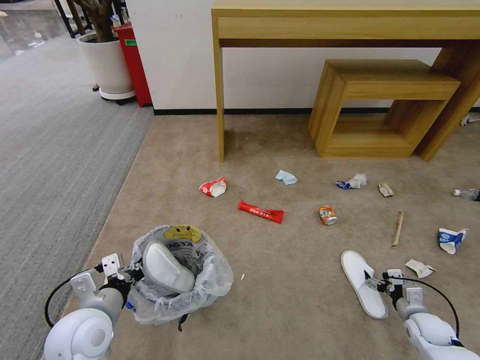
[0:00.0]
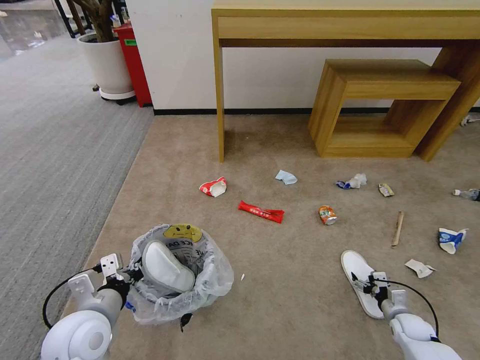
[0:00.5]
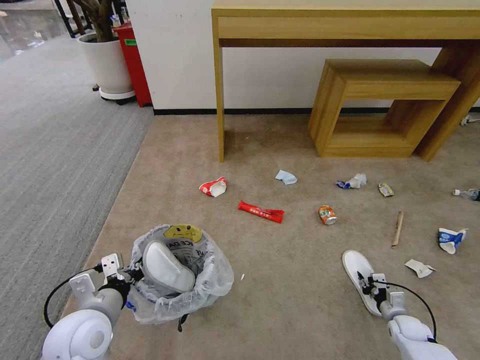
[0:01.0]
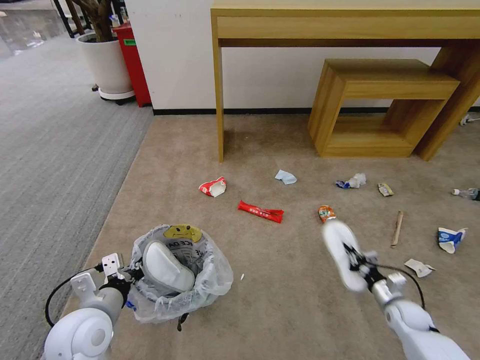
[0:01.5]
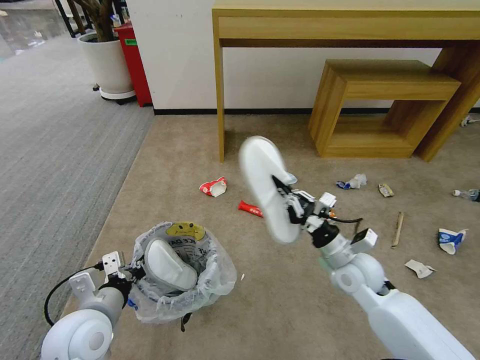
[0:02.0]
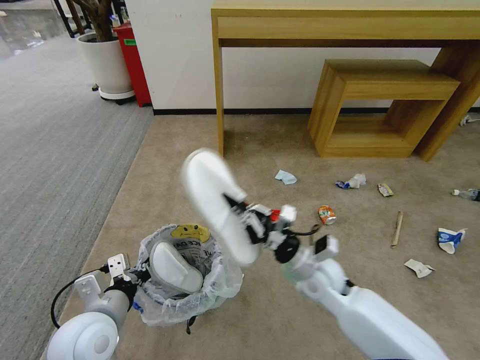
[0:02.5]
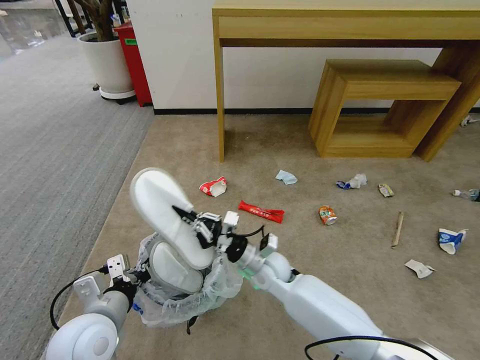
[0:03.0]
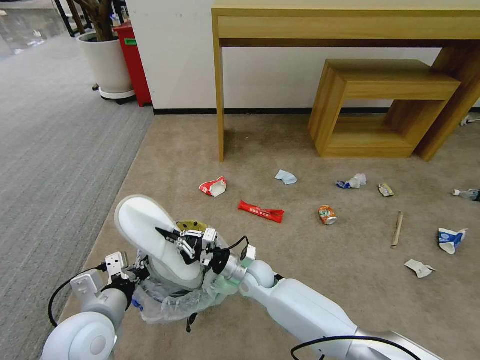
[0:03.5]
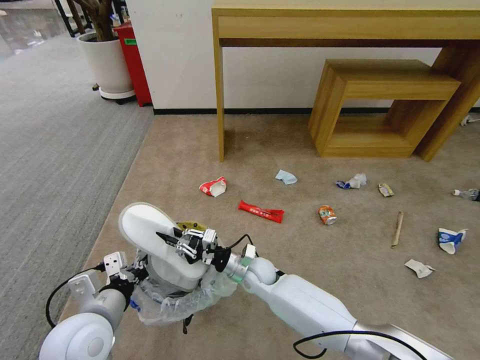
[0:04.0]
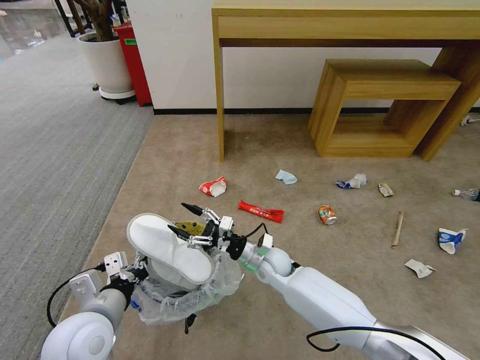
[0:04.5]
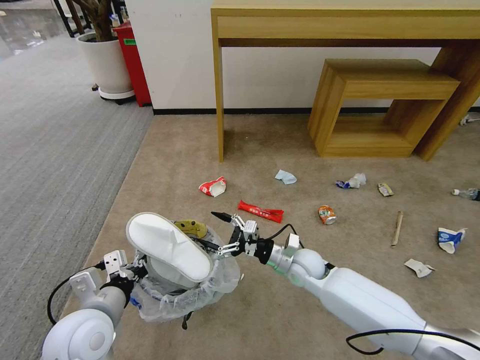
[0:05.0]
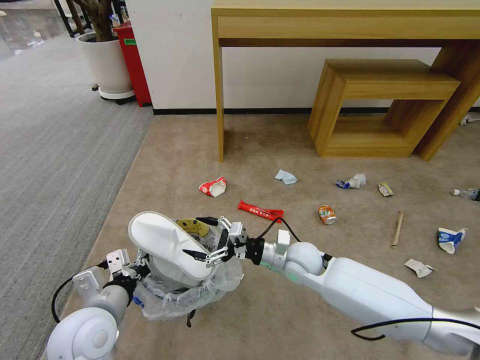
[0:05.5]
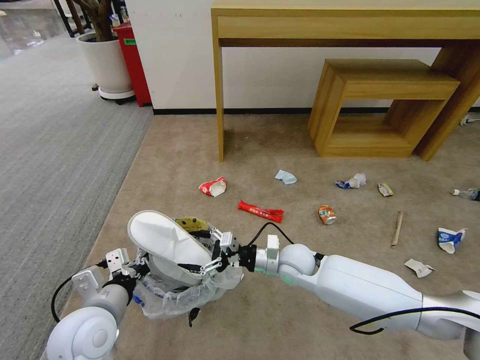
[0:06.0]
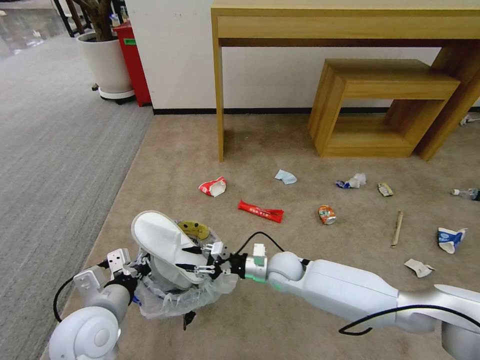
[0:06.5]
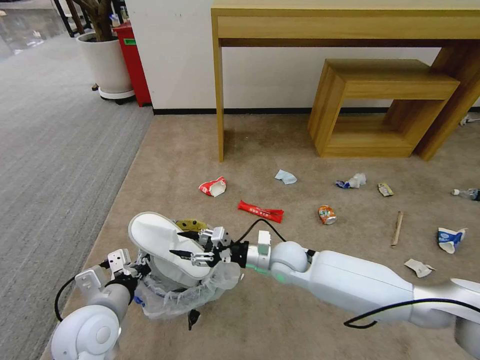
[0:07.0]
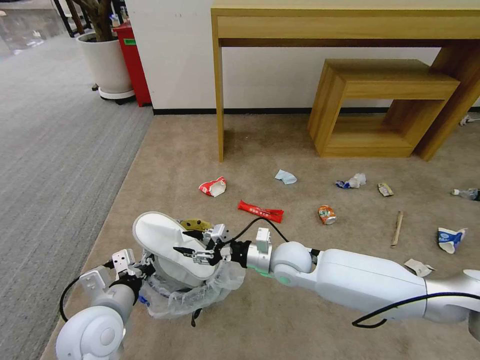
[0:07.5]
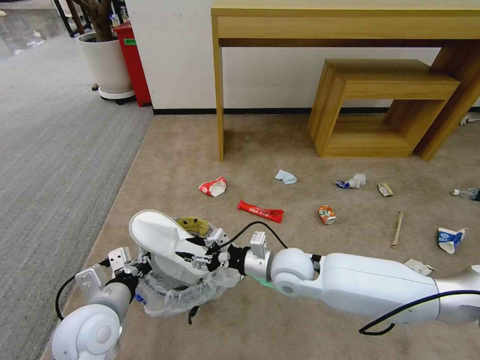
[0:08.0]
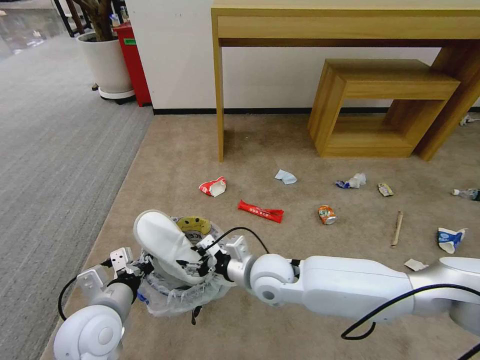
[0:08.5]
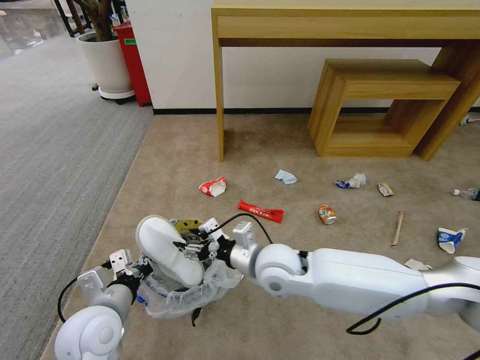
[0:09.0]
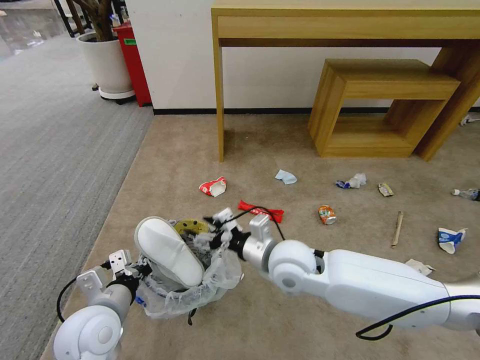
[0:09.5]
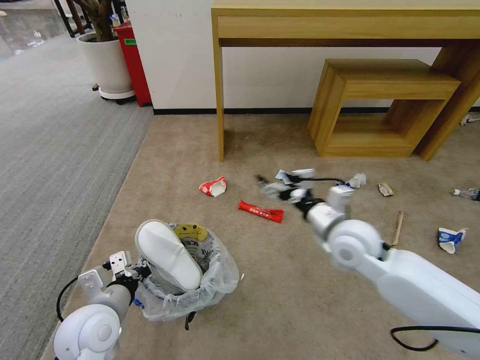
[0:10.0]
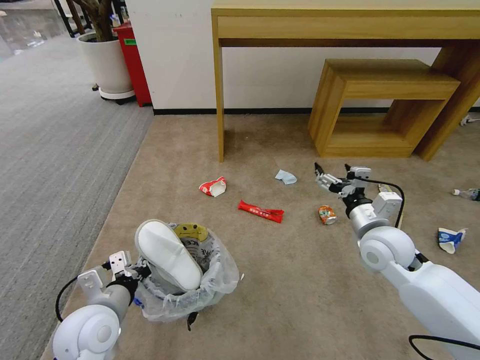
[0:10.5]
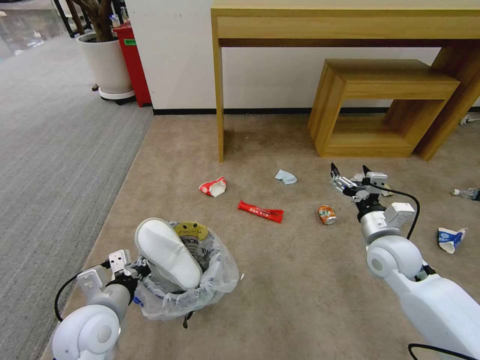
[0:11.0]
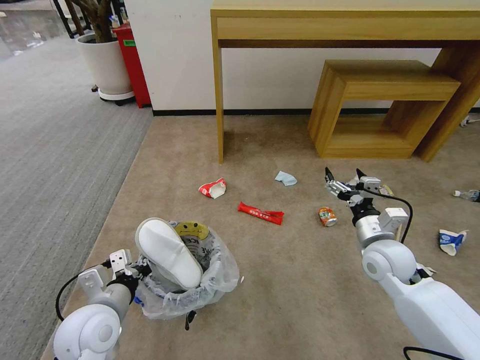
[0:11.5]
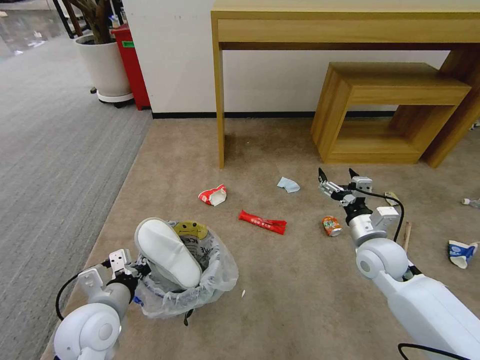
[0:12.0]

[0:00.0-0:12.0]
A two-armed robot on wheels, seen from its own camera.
Task of the whole recording: Pick up the trash bin and place the garbage on the floor into it.
0:00.0 to 0:02.0: The right gripper shifts roughly 30 cm to the left and upward, and closes.
0:02.0 to 0:04.0: The right gripper is displaced to the left and downward by about 25 cm.
0:04.0 to 0:06.0: The right gripper moves to the right and upward, about 10 cm, and opens.
0:06.0 to 0:08.0: The right gripper heads upward, covering some 5 cm, and closes its fingers.
0:08.0 to 0:10.0: The right gripper moves to the right and upward, approximately 15 cm, and opens its fingers.
0:10.0 to 0:12.0: The right gripper goes roughly 10 cm to the right and downward.

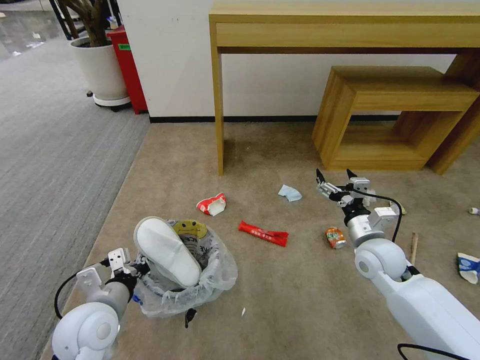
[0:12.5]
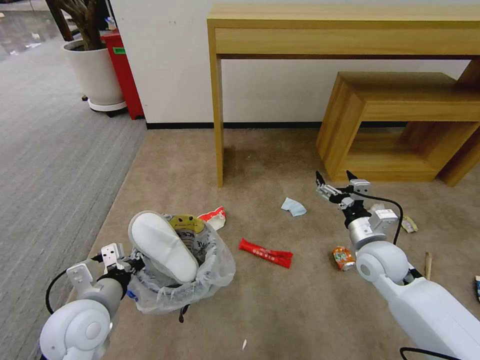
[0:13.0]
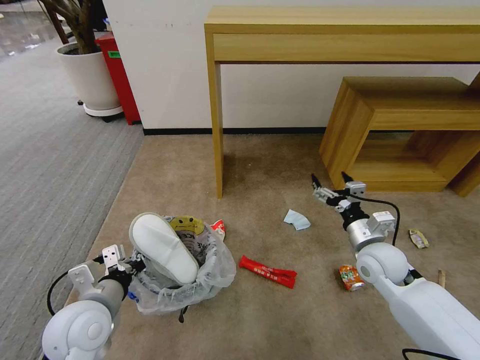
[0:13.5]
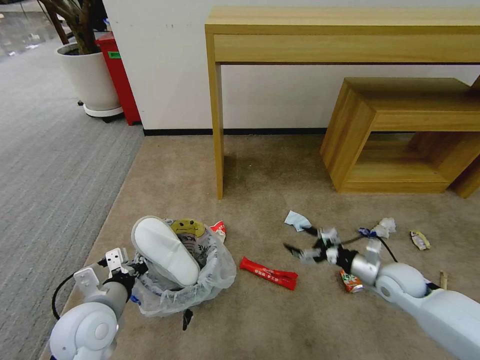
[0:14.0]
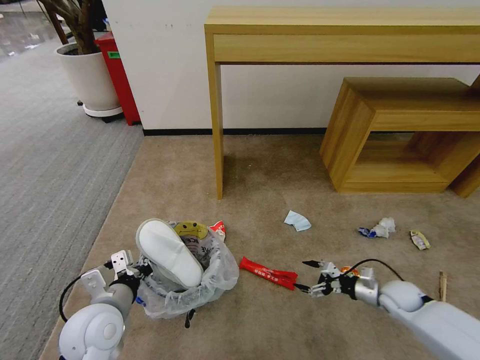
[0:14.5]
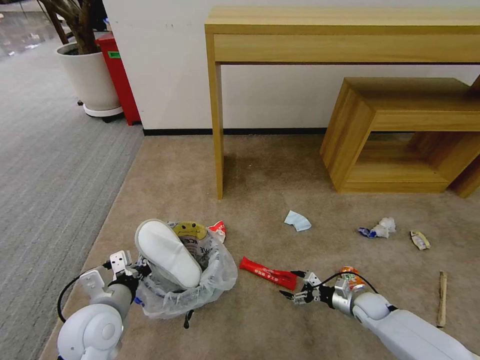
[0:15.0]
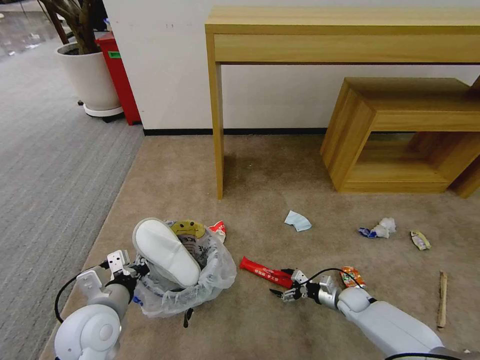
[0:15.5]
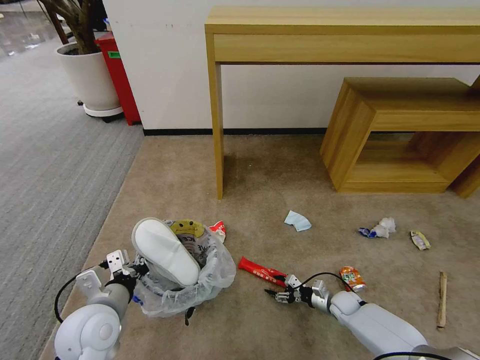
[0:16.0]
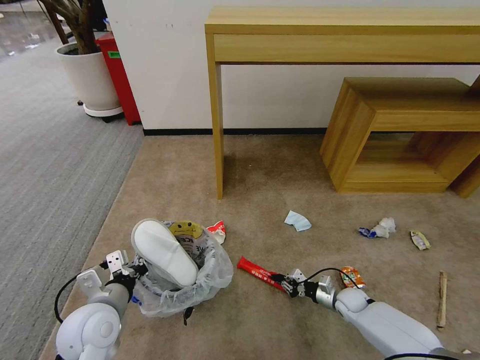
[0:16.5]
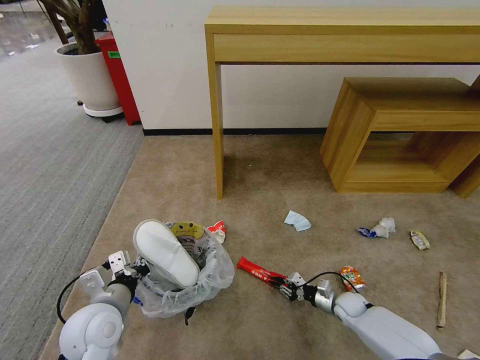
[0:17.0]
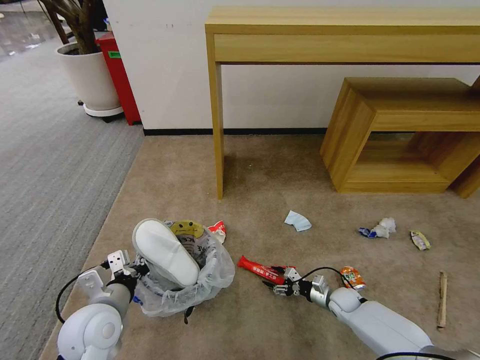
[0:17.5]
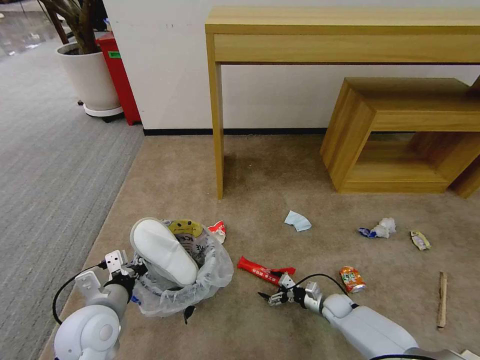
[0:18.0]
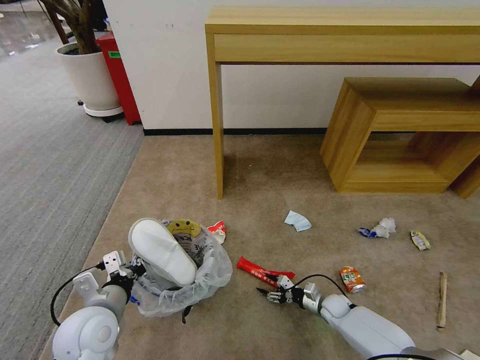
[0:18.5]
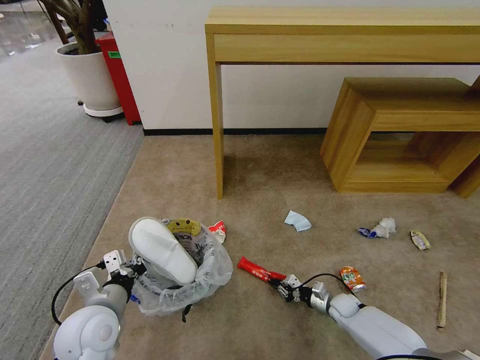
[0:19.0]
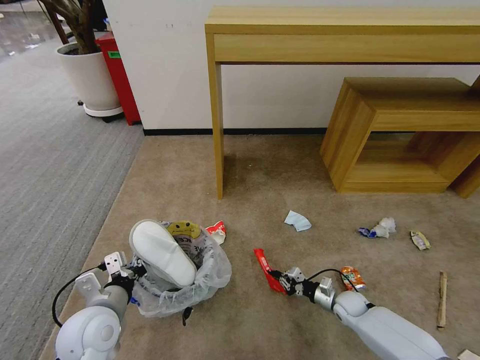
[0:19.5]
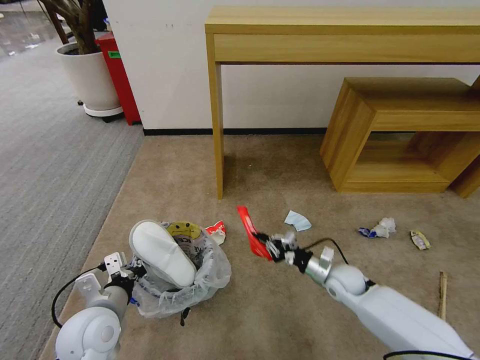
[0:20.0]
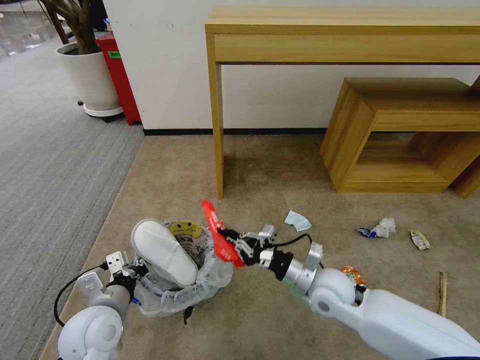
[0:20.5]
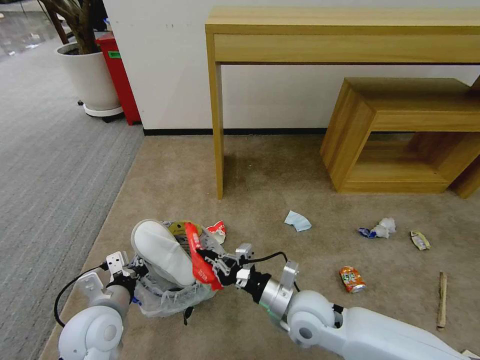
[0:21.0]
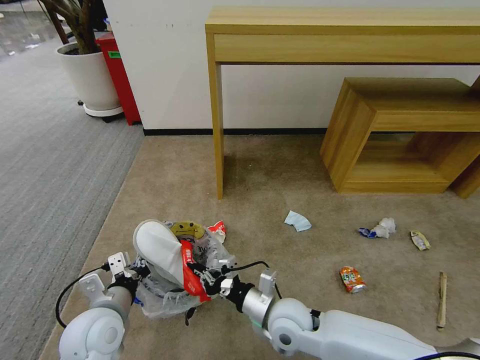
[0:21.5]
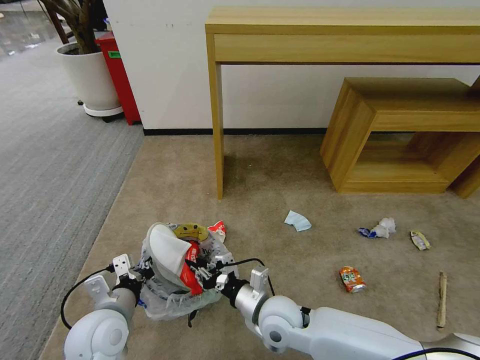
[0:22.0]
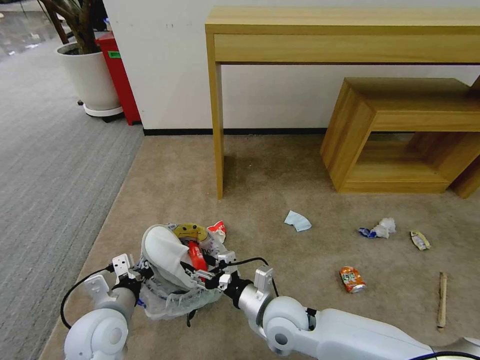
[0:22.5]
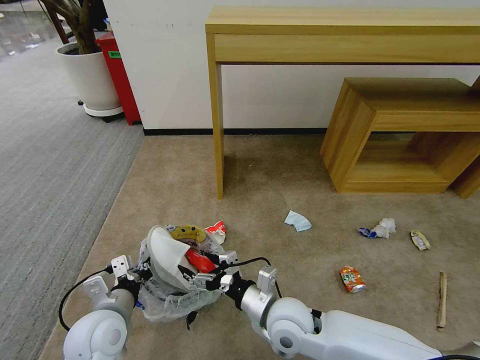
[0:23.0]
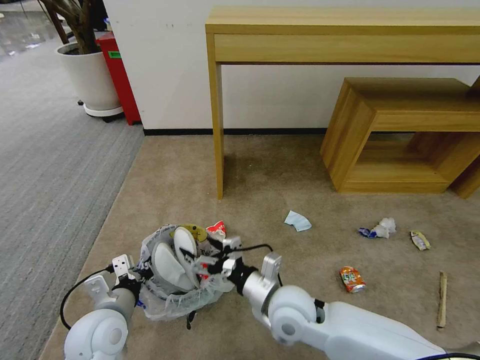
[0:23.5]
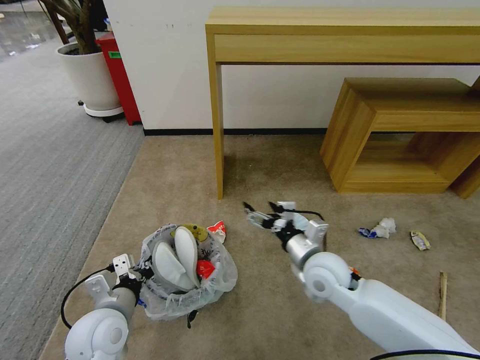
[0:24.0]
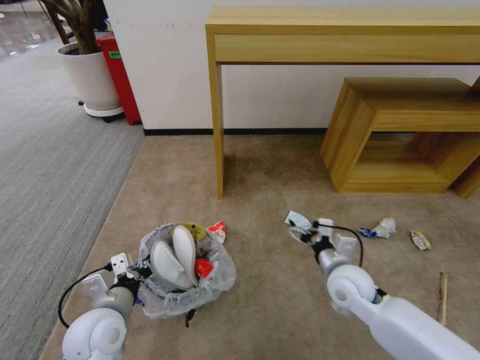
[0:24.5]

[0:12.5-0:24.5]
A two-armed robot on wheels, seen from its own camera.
Task of the whole recording: Pick up the trash bin and place the garbage on the floor into it.
0:12.5 to 0:14.5: The right gripper travels downward and to the right by about 20 cm.
0:14.5 to 0:16.5: The right gripper shifts roughly 15 cm downward and to the left, and closes its fingers.
0:16.5 to 0:18.5: The right gripper opens.
0:18.5 to 0:20.5: The right gripper shifts approximately 30 cm upward and to the left, and closes.
0:20.5 to 0:22.5: The right gripper moves to the left and backward, roughly 10 cm, and opens.
0:22.5 to 0:24.5: The right gripper is displaced to the right and forward by roughly 15 cm.

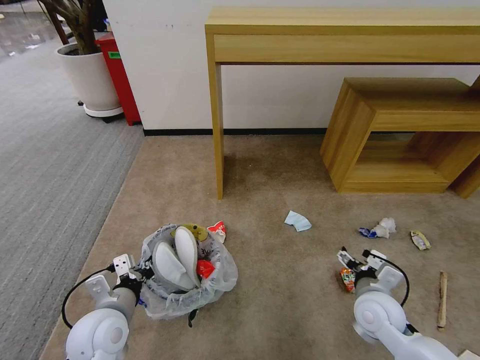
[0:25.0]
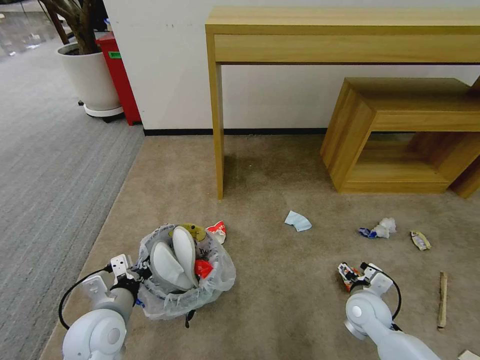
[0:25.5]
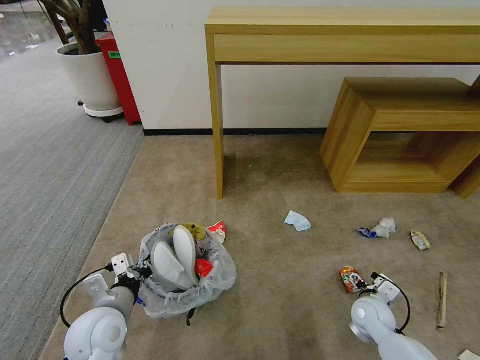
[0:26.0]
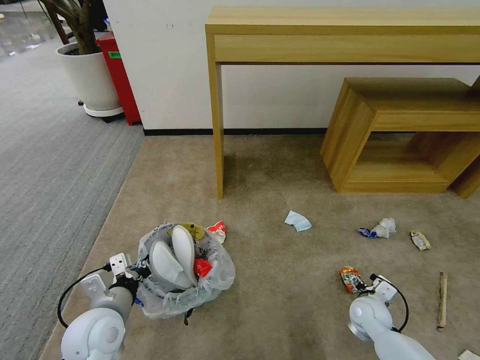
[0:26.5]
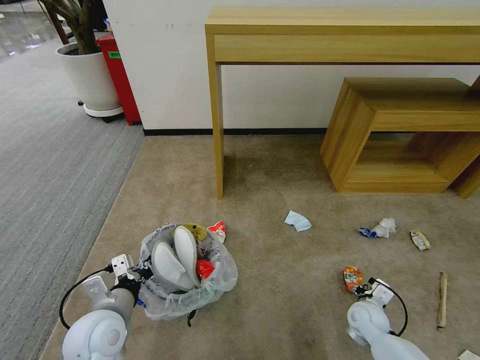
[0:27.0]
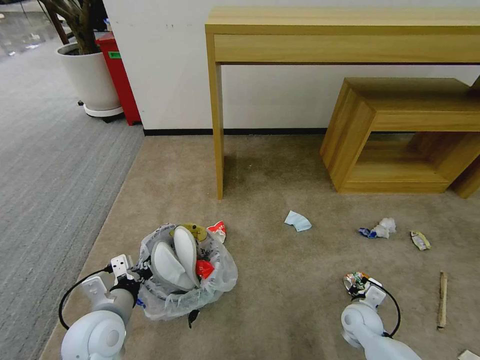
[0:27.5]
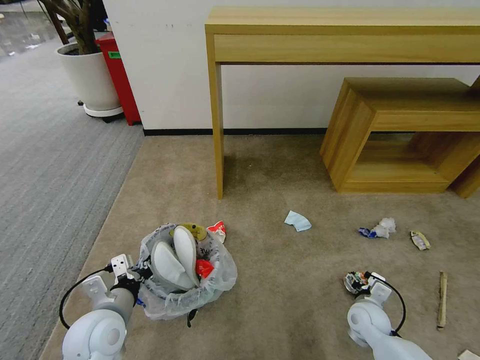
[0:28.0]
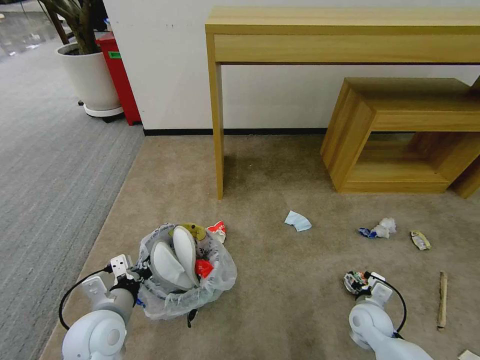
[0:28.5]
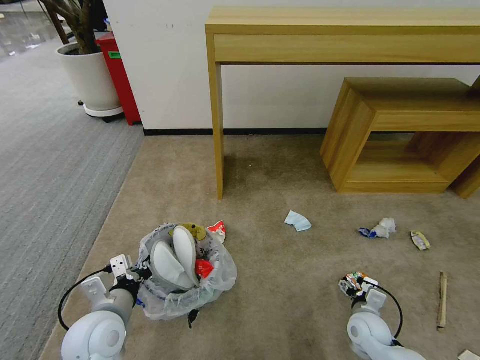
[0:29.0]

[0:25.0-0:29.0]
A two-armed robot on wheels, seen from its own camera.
Task of the whole recording: Pick up the trash bin and place the garbage on the floor into it.
0:25.0 to 0:27.0: The right gripper is displaced downward by about 15 cm, and closes.
0:27.0 to 0:29.0: The right gripper opens its fingers.
